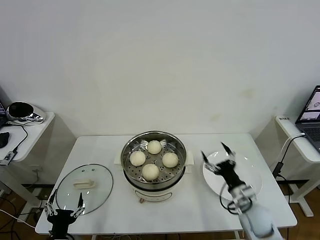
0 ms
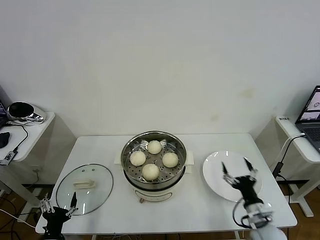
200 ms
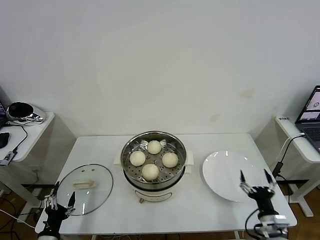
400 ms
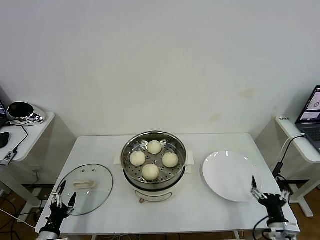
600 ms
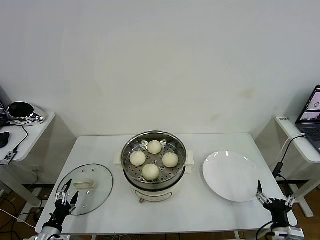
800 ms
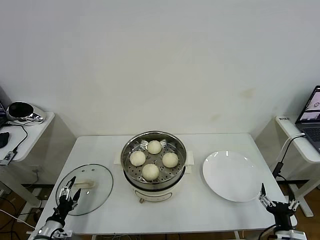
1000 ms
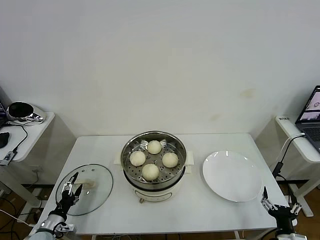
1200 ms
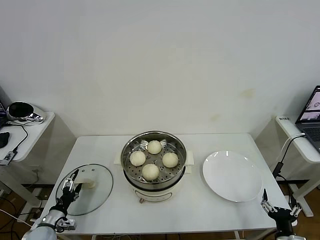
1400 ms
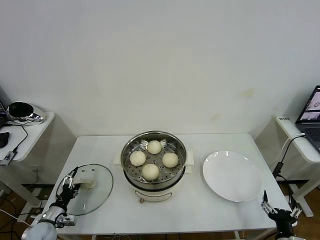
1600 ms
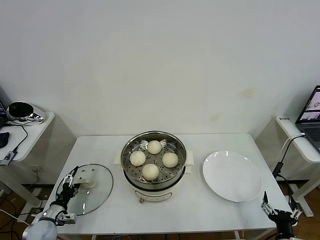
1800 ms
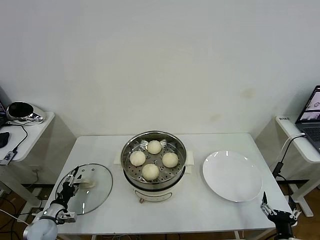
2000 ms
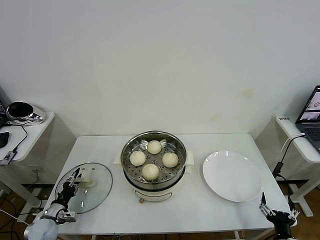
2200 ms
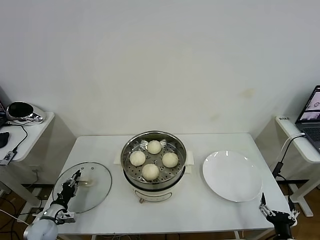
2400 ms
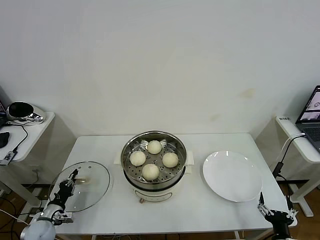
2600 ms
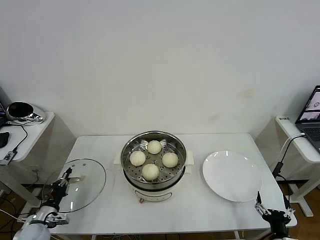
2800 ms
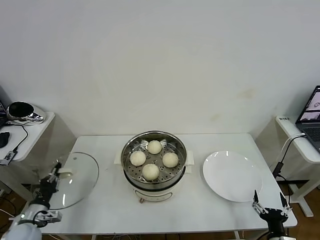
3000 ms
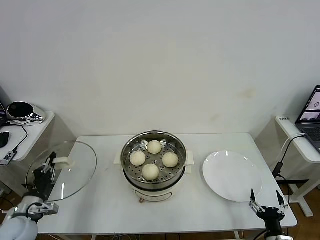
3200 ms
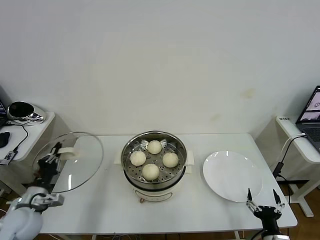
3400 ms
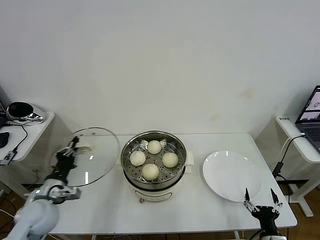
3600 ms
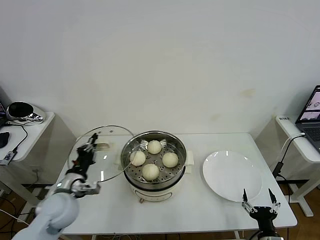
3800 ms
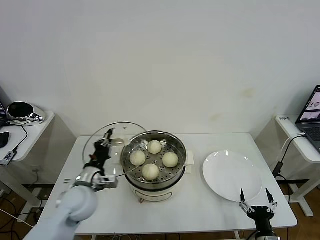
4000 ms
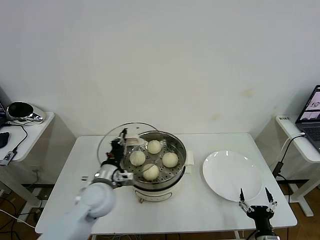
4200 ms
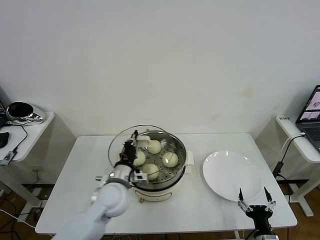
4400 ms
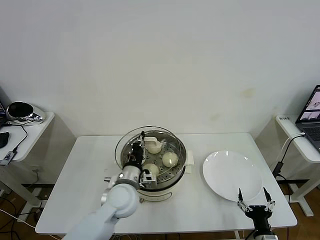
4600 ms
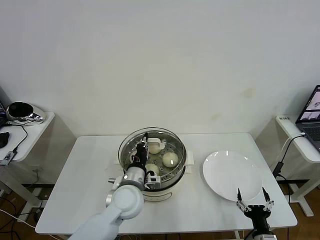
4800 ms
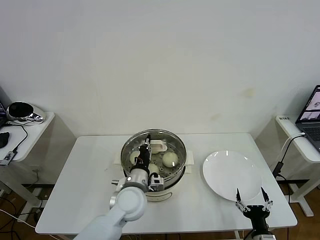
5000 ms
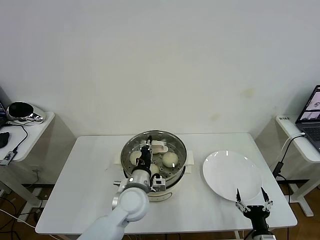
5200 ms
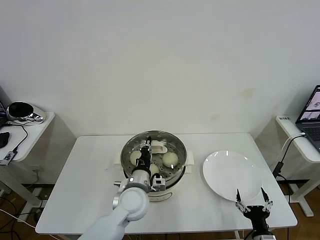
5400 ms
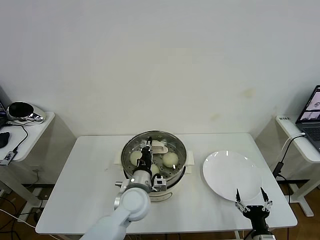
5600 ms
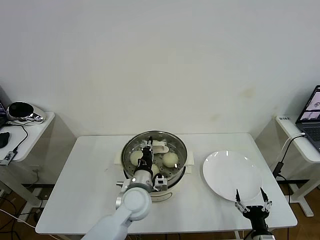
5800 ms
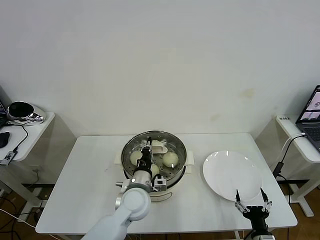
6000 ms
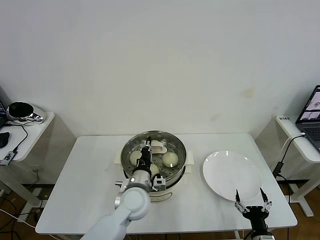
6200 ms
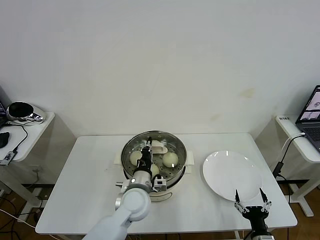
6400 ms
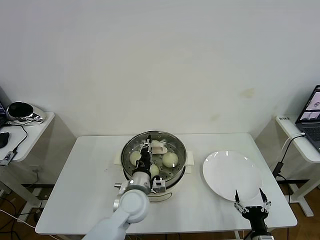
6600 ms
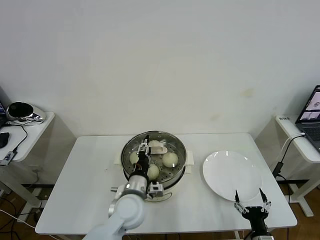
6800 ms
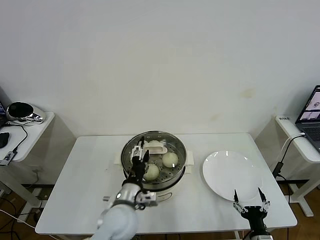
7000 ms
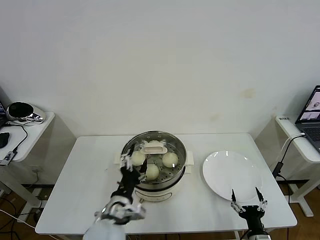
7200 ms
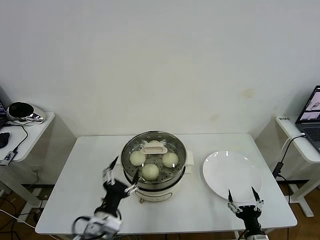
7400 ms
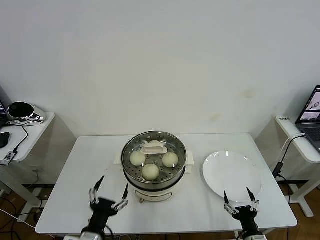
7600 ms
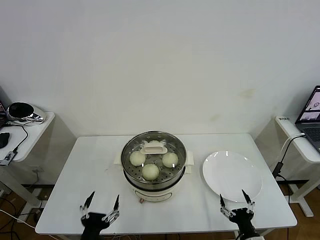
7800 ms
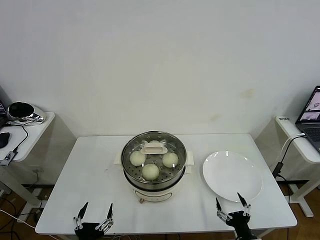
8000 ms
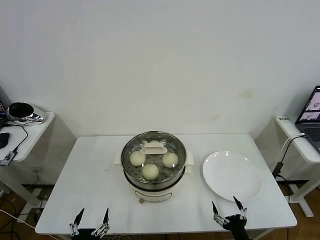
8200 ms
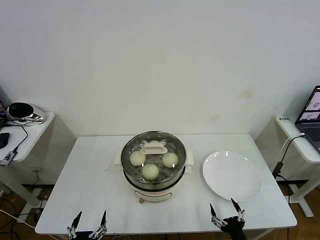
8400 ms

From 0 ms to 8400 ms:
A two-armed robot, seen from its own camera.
Task of the whole recording: take steamed baozi put them in steamer then cover it.
Step, from 0 ms to 2600 ms: Grasp the pot lid with left gripper.
Step, from 3000 ms to 7200 ms: Place the pot lid on the steamer with left gripper.
From 0 ms to 1400 ms: The right gripper travels backward and to the right by about 15 cm. The left gripper shifts about 20 cm to the left, forward and downward.
From 1400 ms to 2800 ms: The left gripper closes.
From 2800 ms to 4200 ms: The left gripper is displaced to the right and upward by some 30 cm.
From 4200 ms to 5600 ms: The left gripper shifts some 10 cm to the right.
From 5600 ms to 7000 ms: The left gripper moves roughly 5 cm, and opens.
From 7000 ms to 8400 ms: The left gripper shifts about 25 cm backward, to the left and downward.

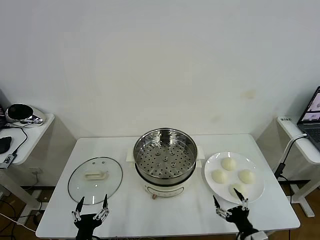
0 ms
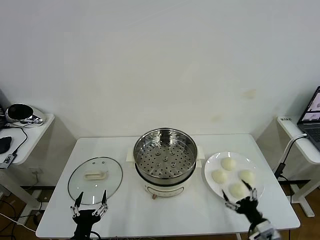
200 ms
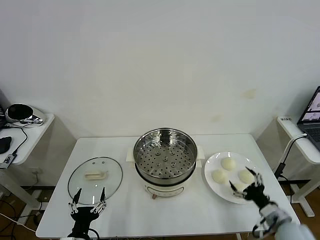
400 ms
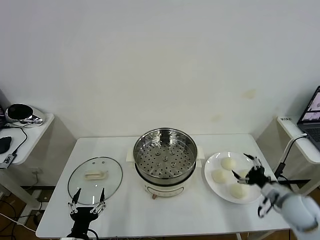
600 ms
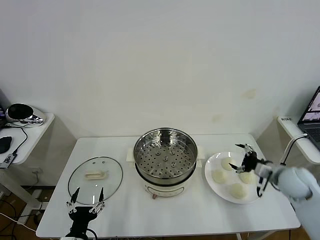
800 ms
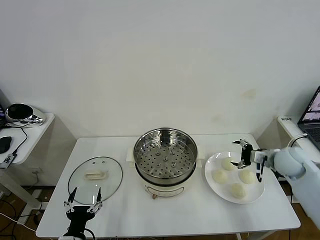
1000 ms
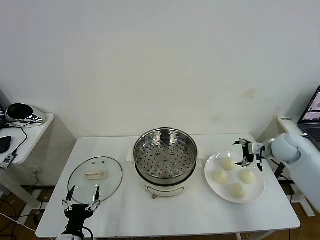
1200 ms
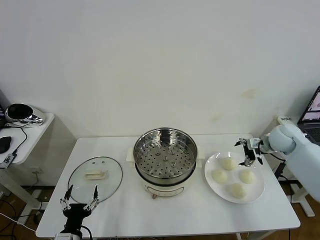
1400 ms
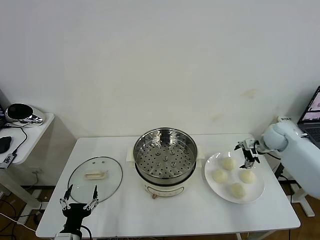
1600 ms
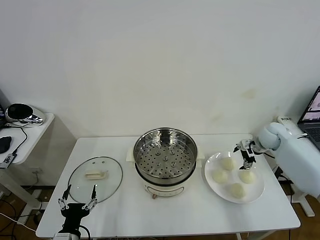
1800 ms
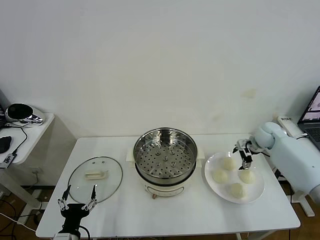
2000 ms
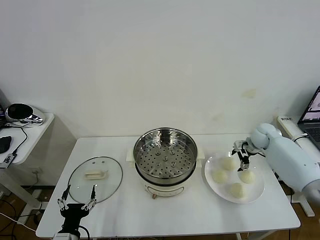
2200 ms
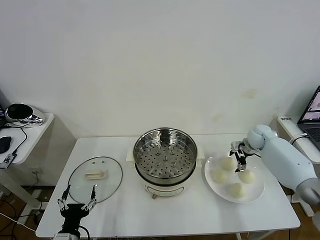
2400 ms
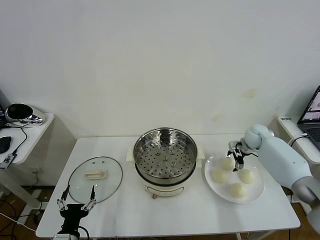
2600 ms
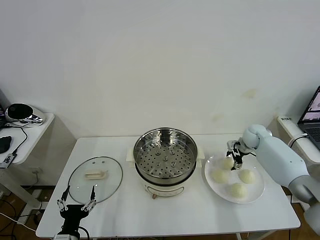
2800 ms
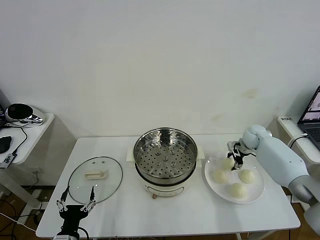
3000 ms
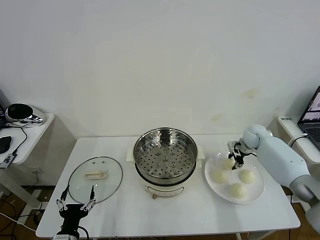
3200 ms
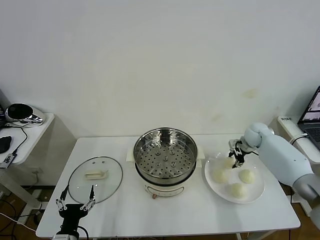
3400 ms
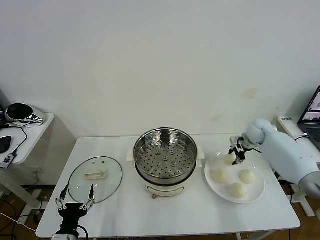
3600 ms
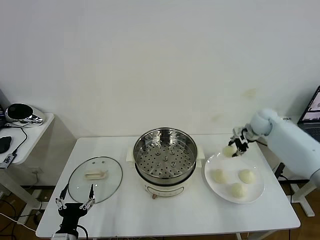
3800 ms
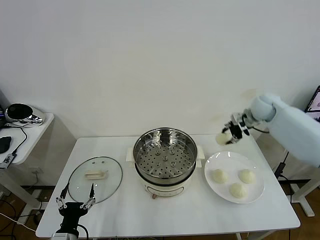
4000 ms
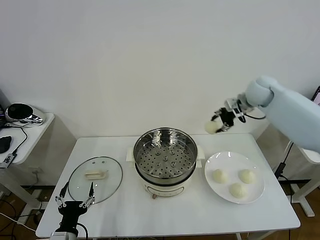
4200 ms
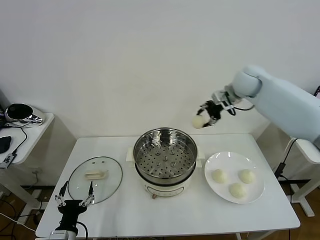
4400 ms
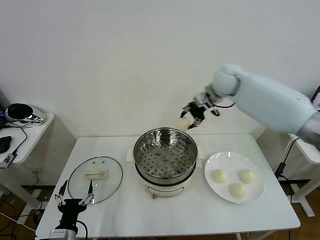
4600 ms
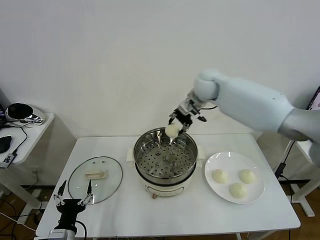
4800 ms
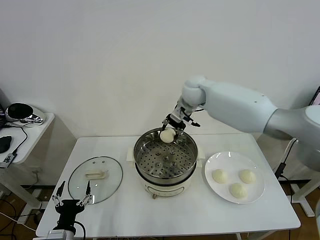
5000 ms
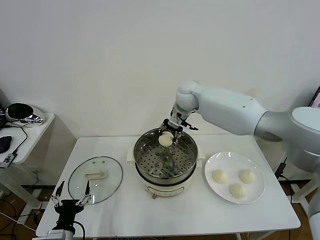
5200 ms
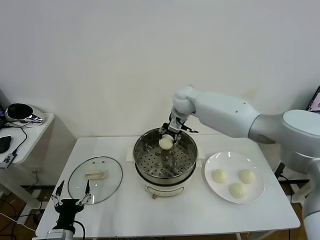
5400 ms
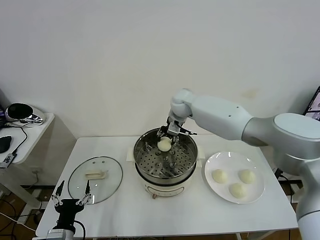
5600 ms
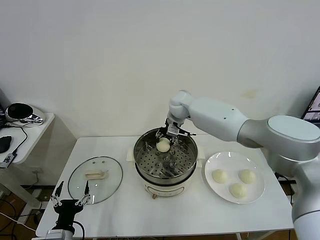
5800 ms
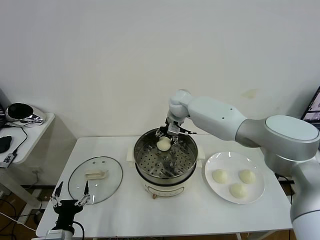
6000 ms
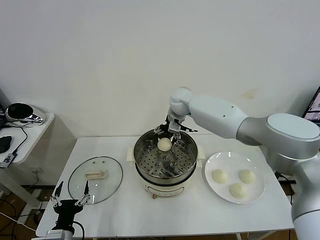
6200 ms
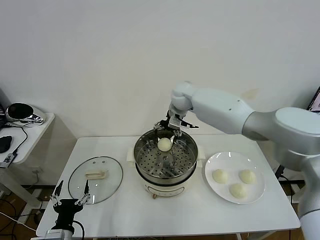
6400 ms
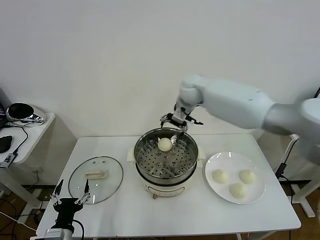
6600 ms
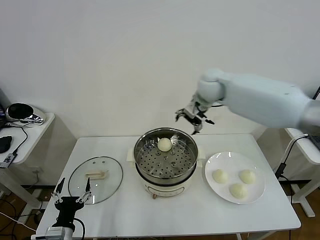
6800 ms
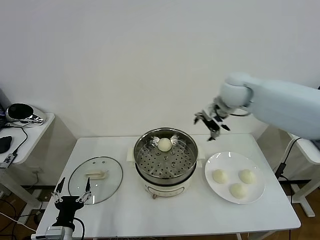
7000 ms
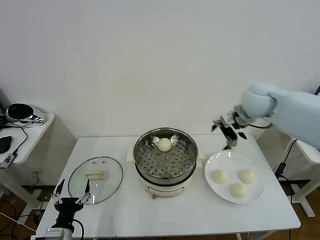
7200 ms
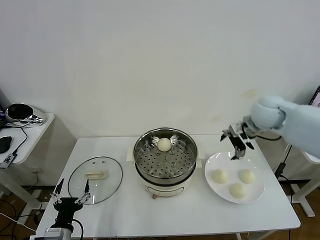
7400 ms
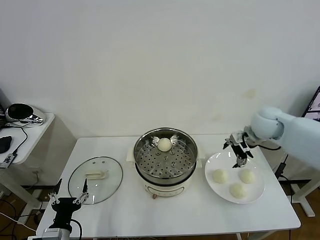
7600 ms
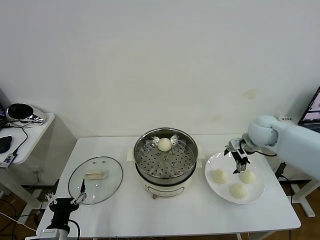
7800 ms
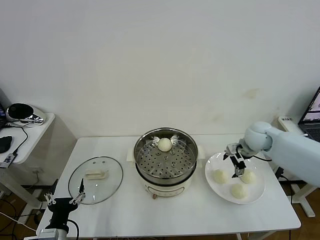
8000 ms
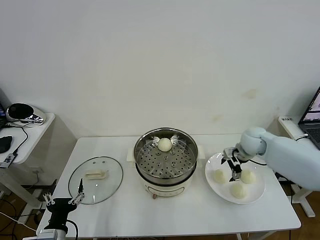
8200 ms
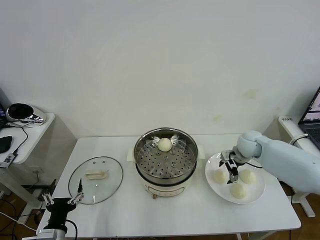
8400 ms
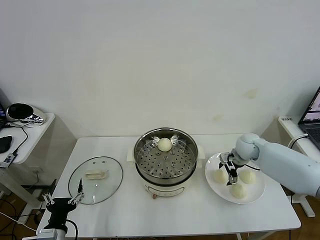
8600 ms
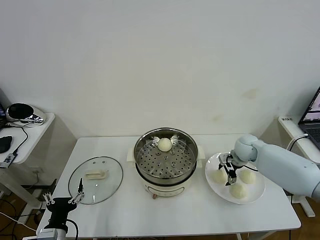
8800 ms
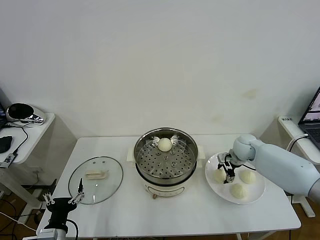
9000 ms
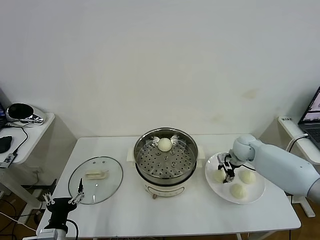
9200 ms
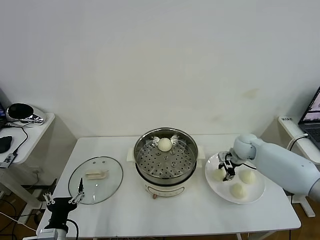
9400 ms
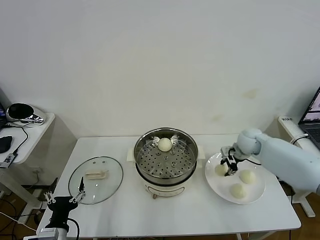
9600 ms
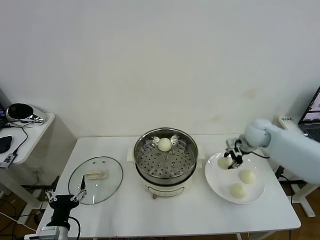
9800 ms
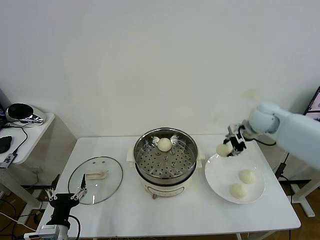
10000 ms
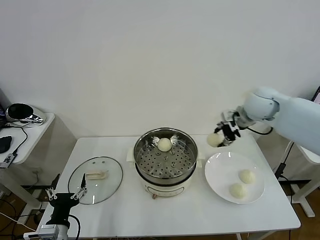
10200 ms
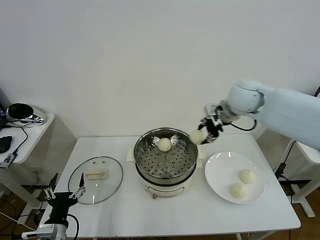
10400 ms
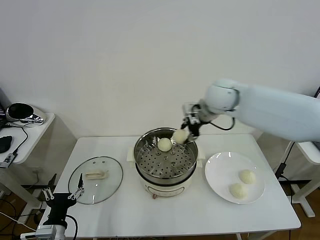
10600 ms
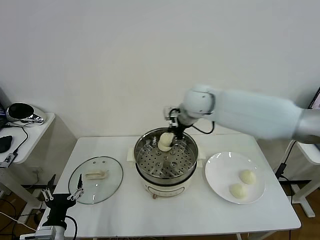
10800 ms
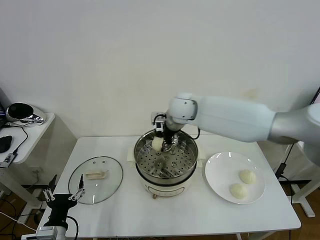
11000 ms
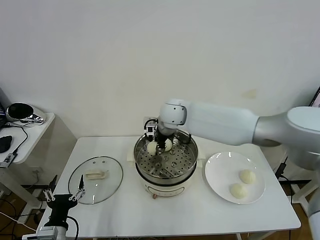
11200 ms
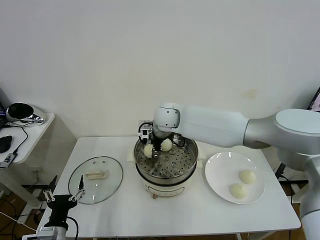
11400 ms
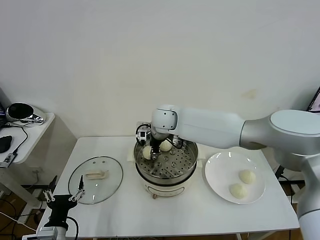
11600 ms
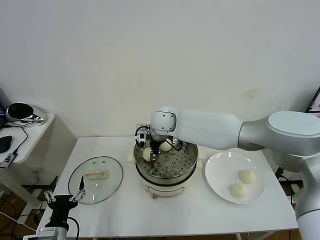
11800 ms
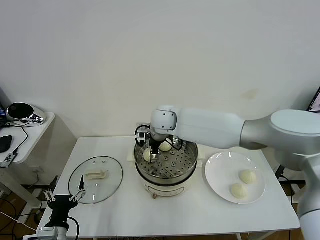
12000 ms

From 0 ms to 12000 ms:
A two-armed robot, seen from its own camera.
Task of the whole recording: take steamed baozi put them in steamer then cover it.
Step, from 0 ms to 3200 ms: Grasp the baozi in the plate with right gripper.
Step, from 3400 ms to 6200 ms: Place the baozi on the steamer with right gripper.
Step, from 6400 ms to 9400 ms: Grasp the baozi in the plate with right gripper.
From 1600 ms to 3000 ms: The right gripper goes about 5 cm downward, and closes.
From 3000 ms to 4400 ms: The right gripper moves upward and to the left, about 30 cm.
From 4400 ms to 6000 ms: The right gripper goes approximately 20 cm to the left and downward, and opens up.
From 6000 ms to 7600 ms: The right gripper is displaced to the right and backward by some 30 cm.
From 7600 ms to 9000 ms: The right gripper is displaced downward by some 15 cm, and closes.
From 9000 ms to 10400 ms: The right gripper is displaced upward and to the left by about 25 cm.
From 10400 ms to 12000 ms: The right gripper travels to the left and downward by roughly 20 cm, and opens.

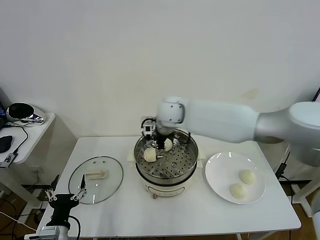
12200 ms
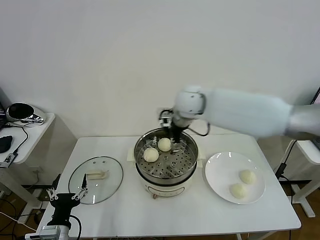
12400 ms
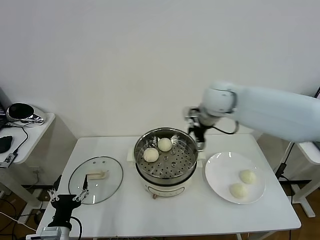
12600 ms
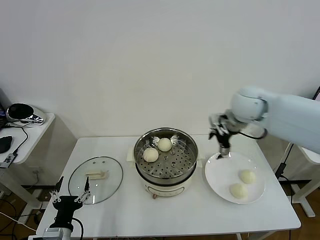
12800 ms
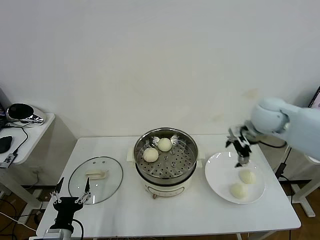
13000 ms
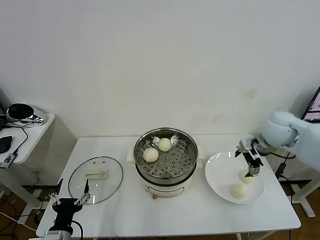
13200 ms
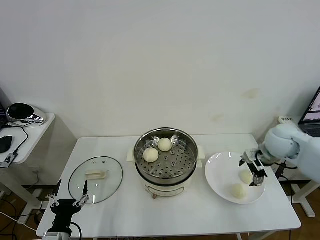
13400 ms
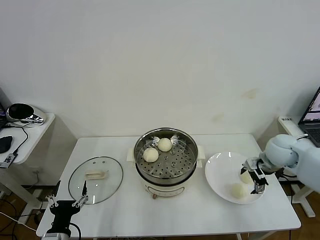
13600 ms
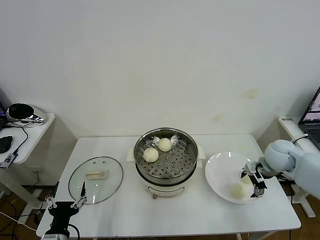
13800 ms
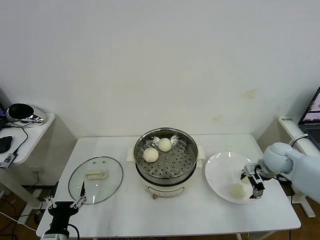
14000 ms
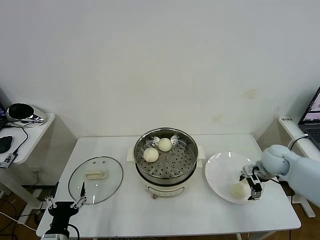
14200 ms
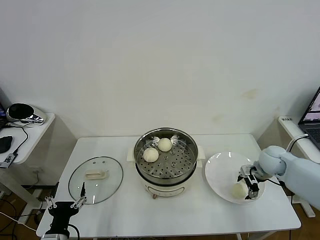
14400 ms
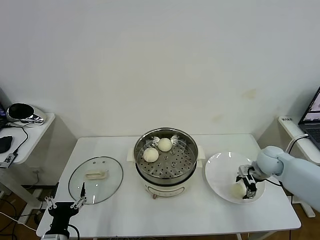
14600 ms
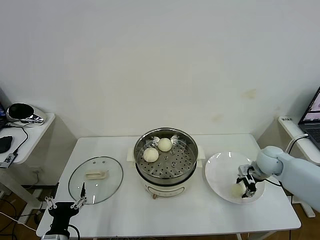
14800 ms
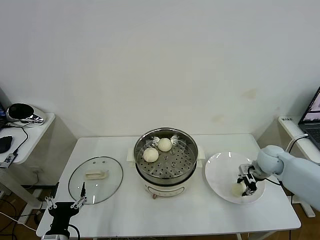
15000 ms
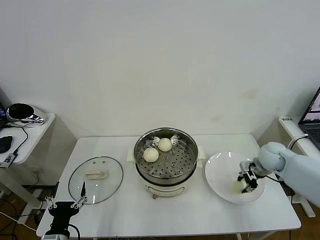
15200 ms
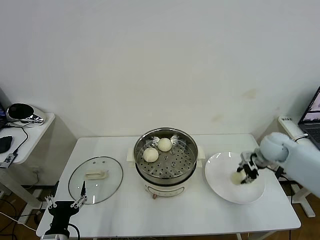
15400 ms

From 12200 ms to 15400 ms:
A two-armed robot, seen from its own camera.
Task of the whole recording: take steamed baozi put them in steamer then cover it.
Step, from 12400 ms to 14800 ms: Grasp the baozi in the plate with right gripper.
From 12200 ms to 13800 ms: The right gripper moves to the right and downward, some 35 cm.
From 13800 ms to 15400 ms: The right gripper moves about 5 cm, and closes.
